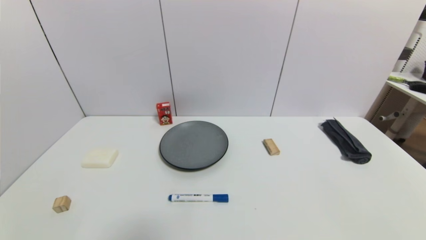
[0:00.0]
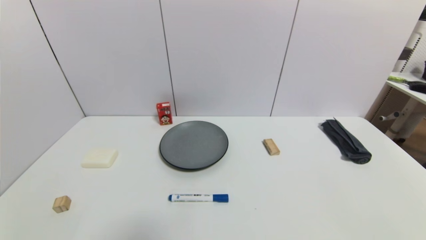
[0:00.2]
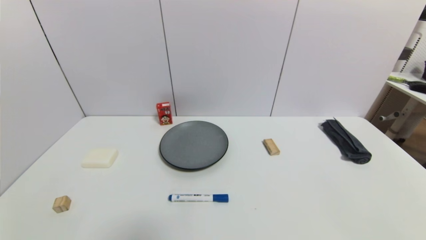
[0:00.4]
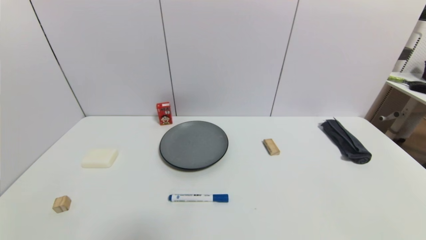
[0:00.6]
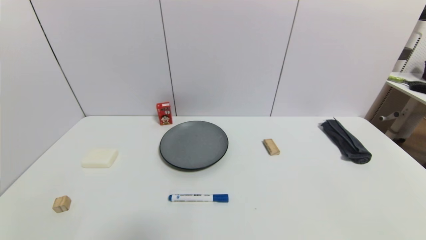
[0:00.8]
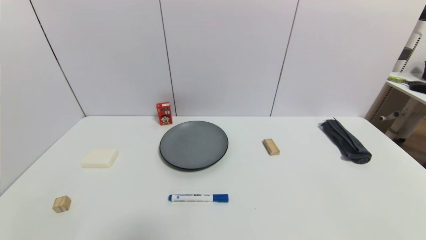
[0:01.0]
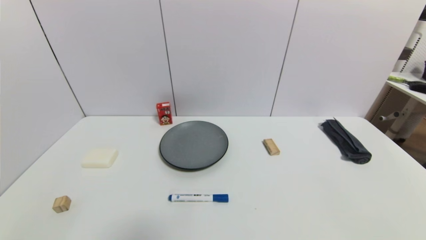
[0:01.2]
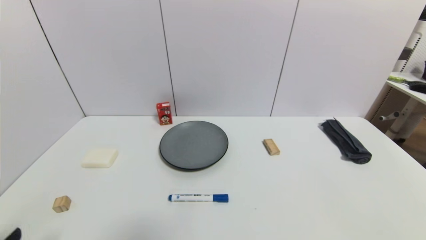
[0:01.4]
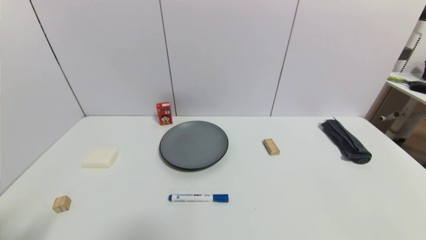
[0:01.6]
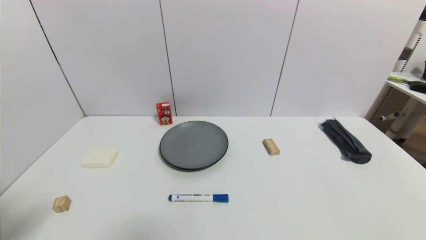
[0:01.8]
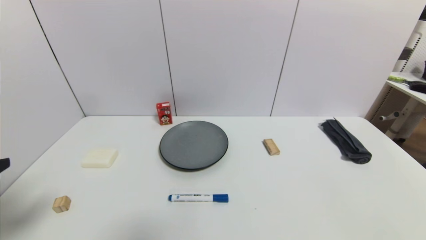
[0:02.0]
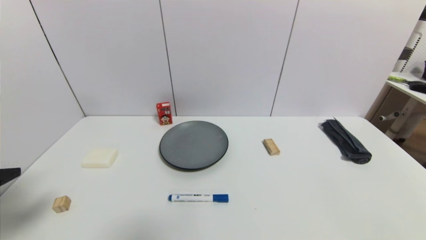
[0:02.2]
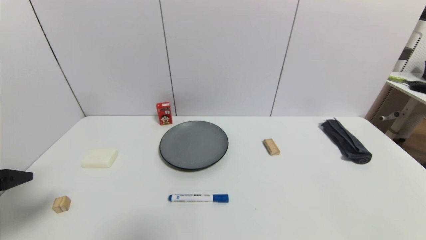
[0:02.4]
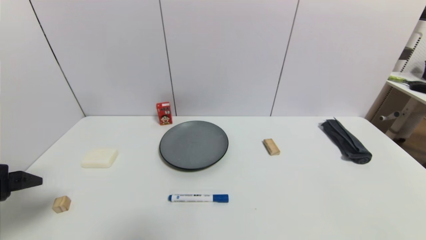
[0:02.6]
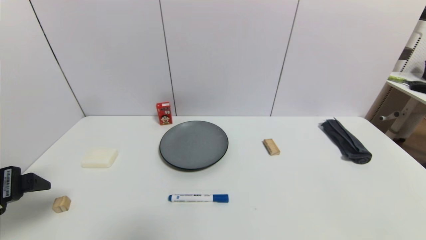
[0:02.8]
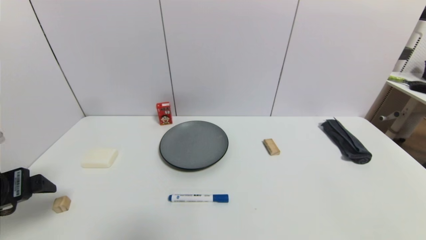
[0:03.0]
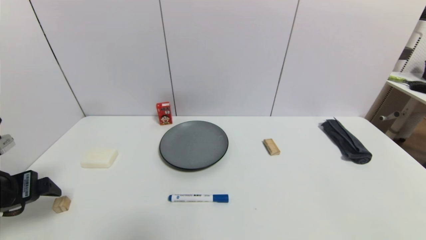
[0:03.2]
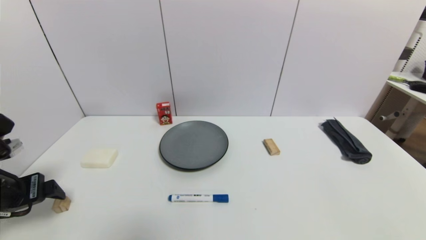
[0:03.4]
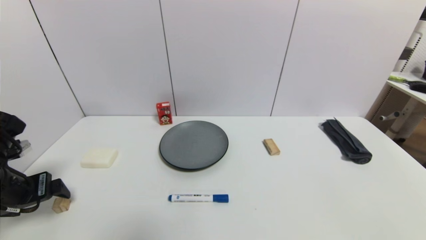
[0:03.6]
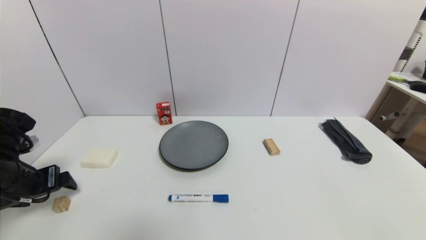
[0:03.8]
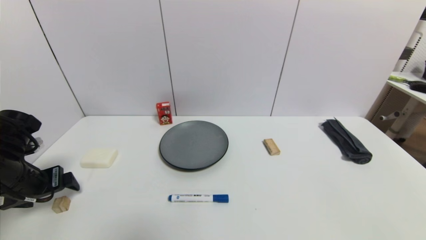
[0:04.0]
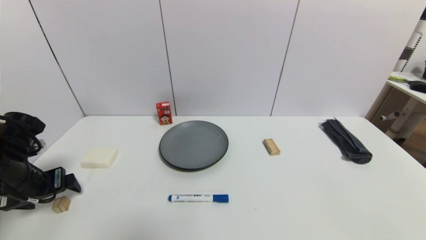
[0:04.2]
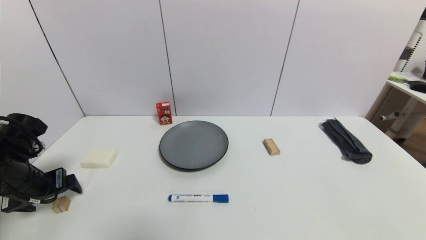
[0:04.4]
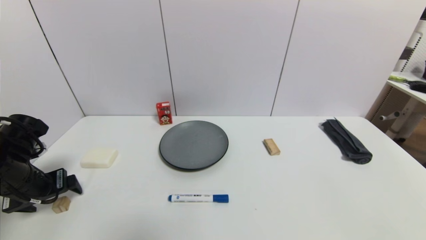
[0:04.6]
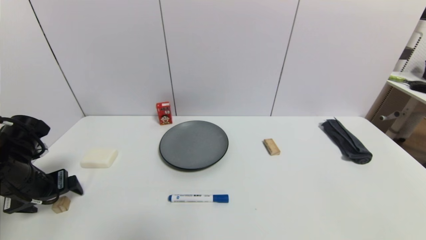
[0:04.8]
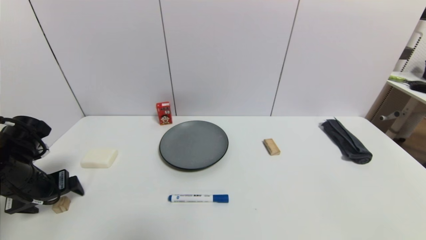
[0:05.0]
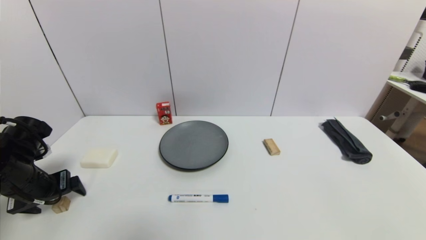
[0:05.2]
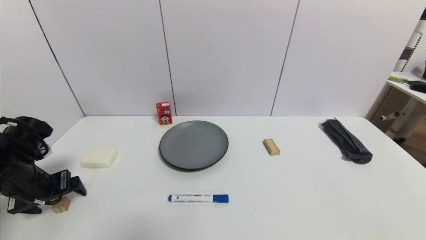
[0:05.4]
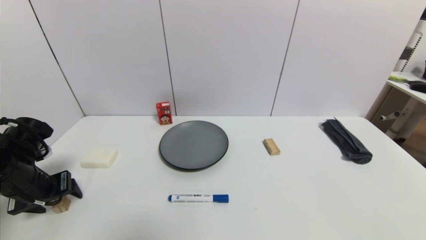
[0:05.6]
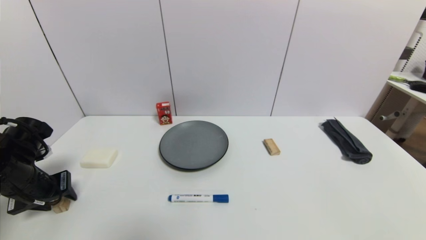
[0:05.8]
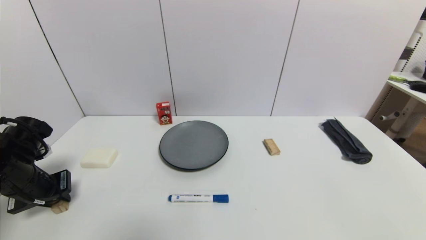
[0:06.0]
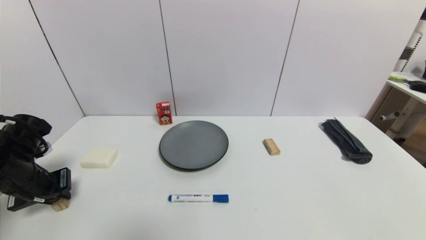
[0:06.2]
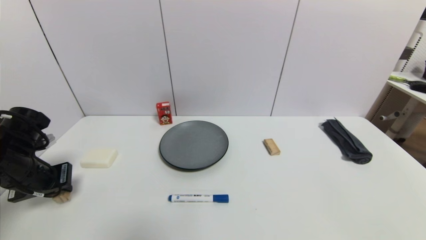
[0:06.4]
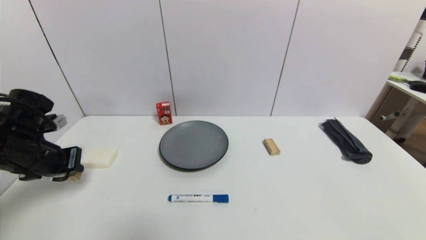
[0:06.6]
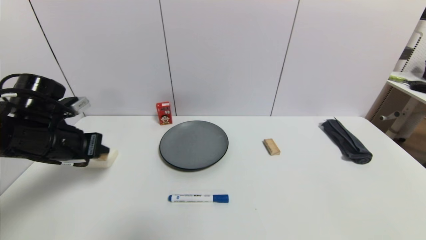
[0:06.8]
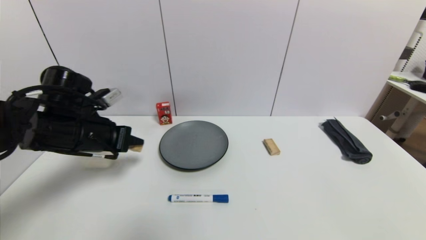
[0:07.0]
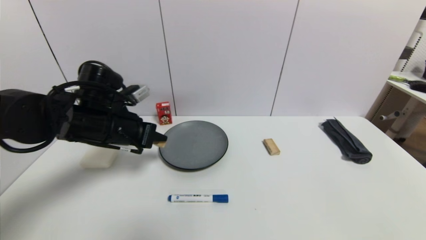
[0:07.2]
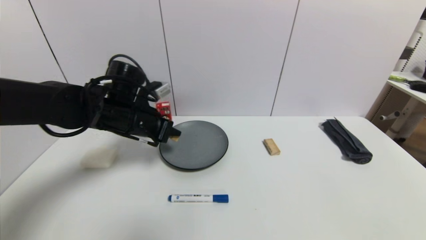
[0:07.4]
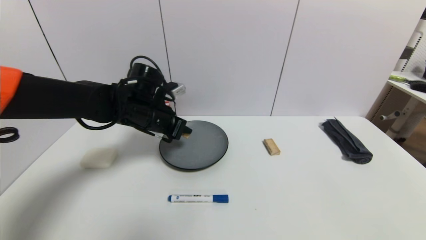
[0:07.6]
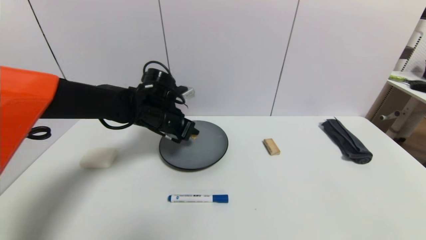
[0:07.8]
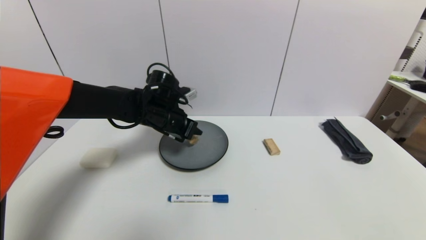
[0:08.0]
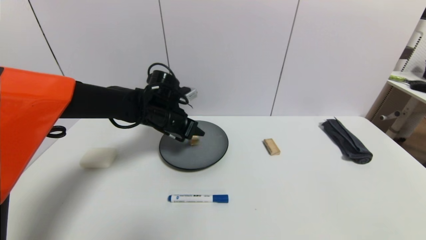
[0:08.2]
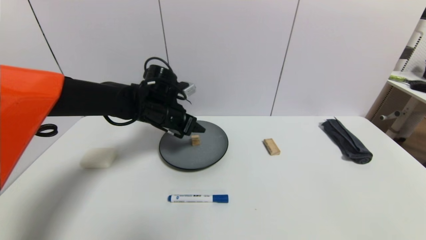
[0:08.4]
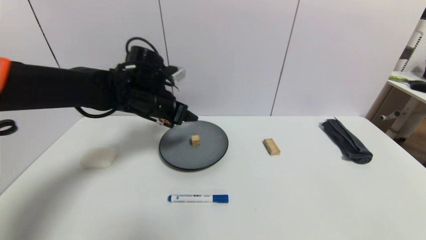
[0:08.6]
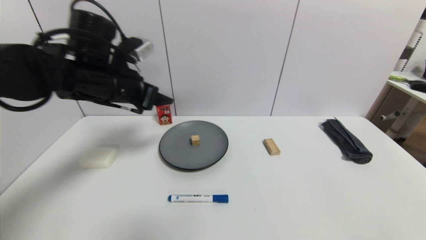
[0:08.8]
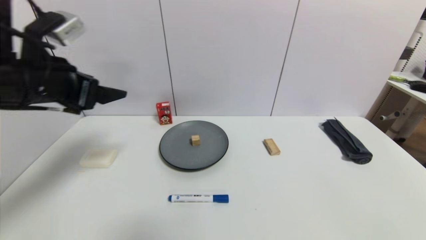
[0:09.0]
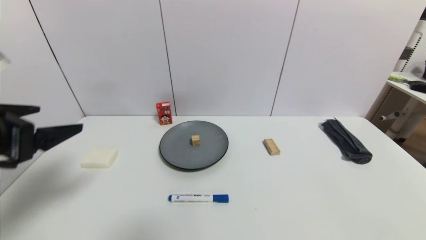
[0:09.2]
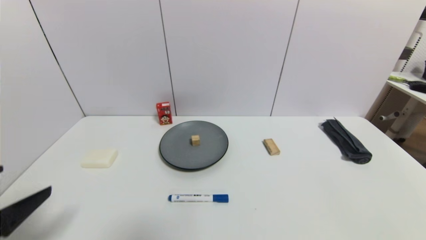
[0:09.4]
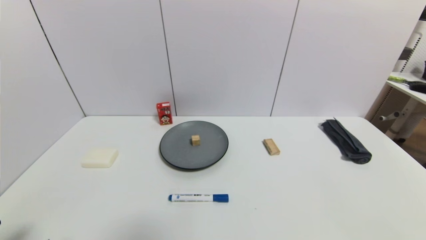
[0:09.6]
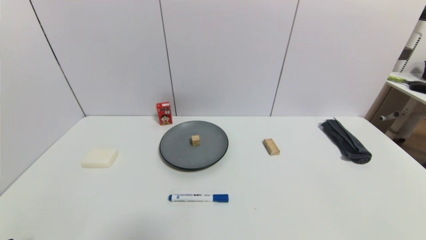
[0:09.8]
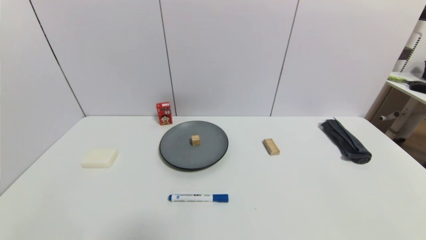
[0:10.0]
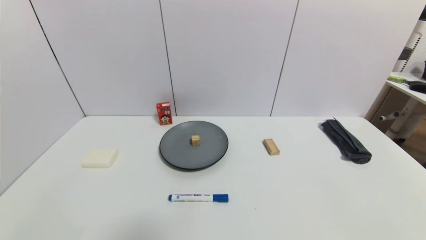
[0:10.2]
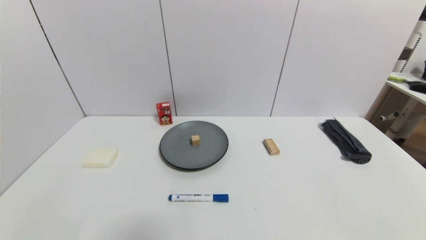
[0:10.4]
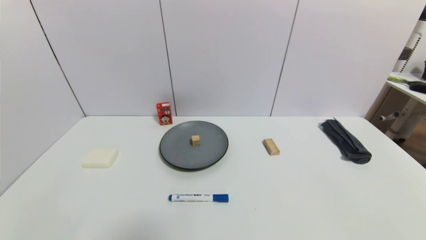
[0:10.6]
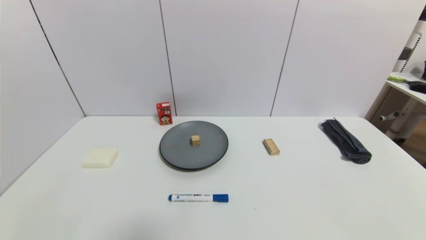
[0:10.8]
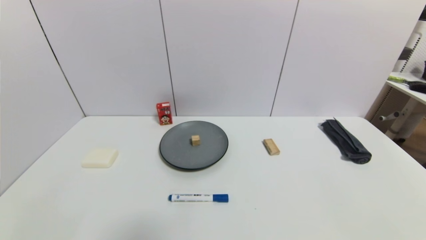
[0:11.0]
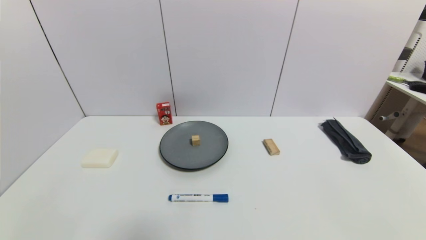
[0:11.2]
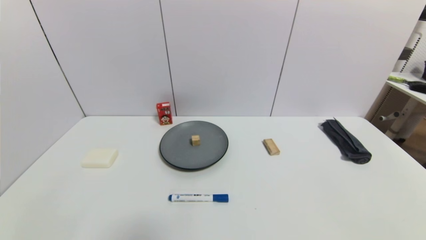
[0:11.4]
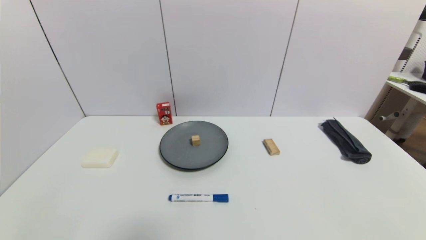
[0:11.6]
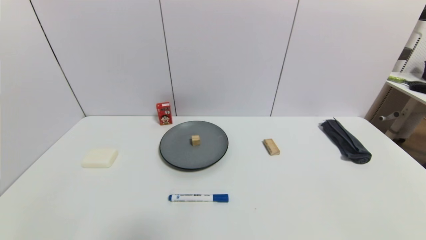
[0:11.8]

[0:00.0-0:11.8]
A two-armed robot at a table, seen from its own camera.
Task of the whole recording: use a gripper to pick the target object and place on the gray plate.
Step, 0:00.0 to 0:06.0: Grasp the square wooden block with the left gripper.
Step, 0:06.2 to 0:08.4: Place the square wooden block on the gray plate with the left gripper.
0:01.4 to 0:03.0: The left gripper moves forward, about 15 cm.
0:03.0 to 0:04.4: The left gripper travels forward and downward by some 10 cm.
0:04.4 to 0:06.0: The left gripper closes up.
0:06.0 to 0:07.4: The left gripper is displaced to the right and forward by approximately 20 cm.
0:07.4 to 0:08.8: The left gripper travels upward by approximately 10 cm, and opens its fingers.
0:08.8 to 0:10.4: The left gripper moves backward and downward, about 40 cm.
